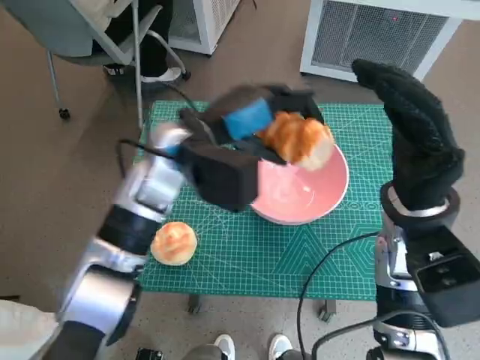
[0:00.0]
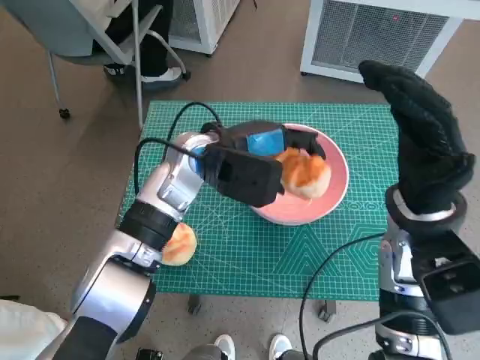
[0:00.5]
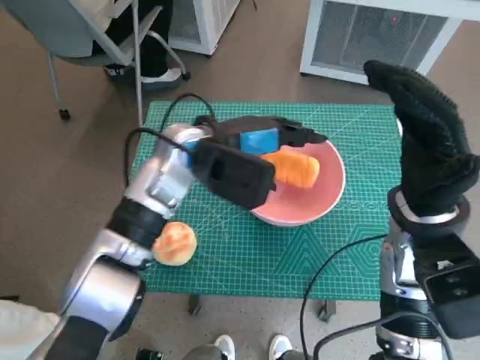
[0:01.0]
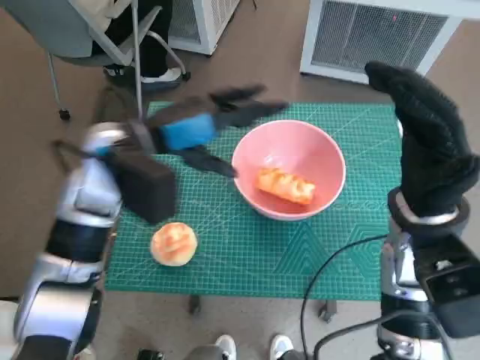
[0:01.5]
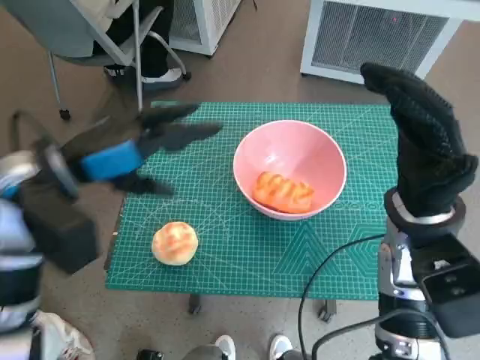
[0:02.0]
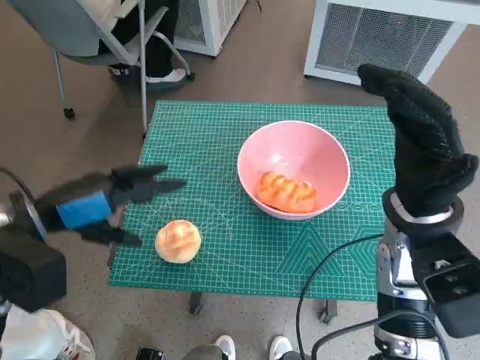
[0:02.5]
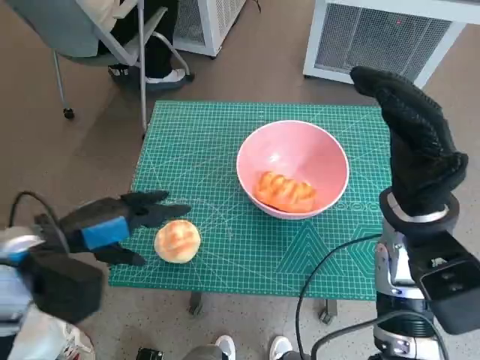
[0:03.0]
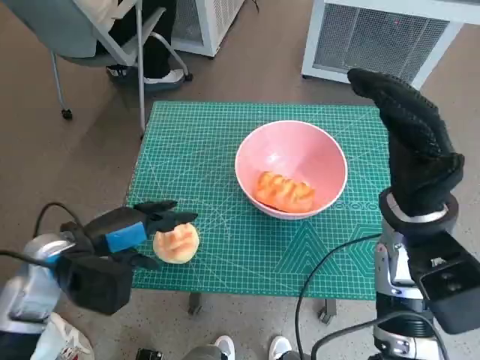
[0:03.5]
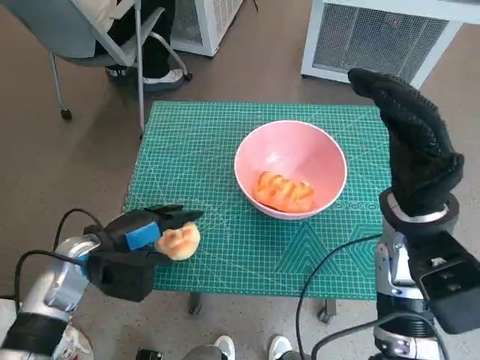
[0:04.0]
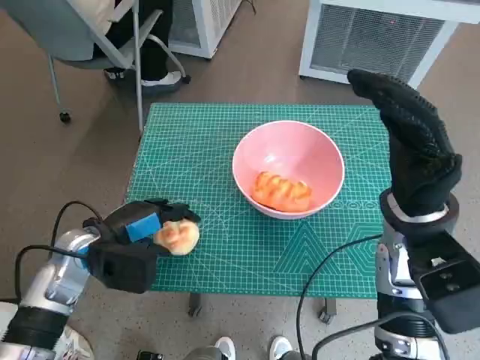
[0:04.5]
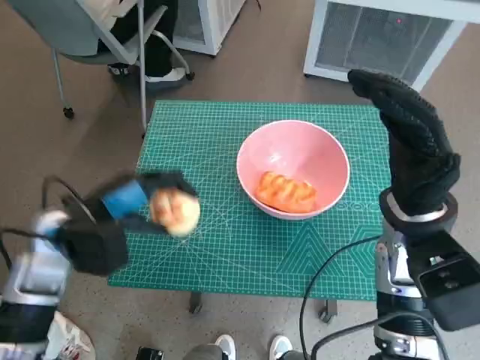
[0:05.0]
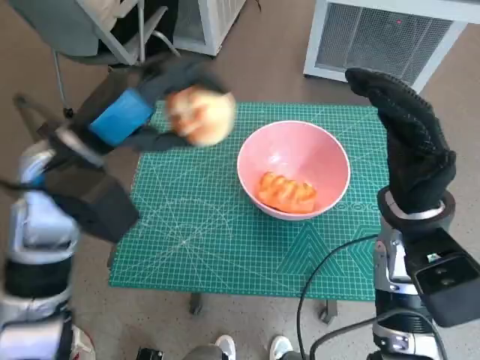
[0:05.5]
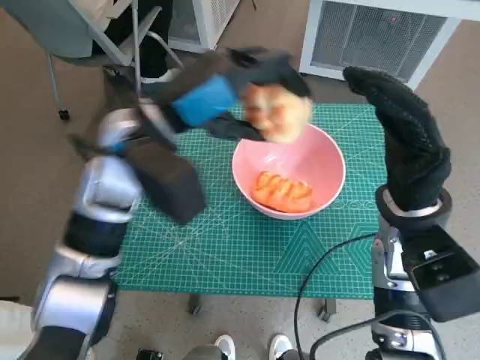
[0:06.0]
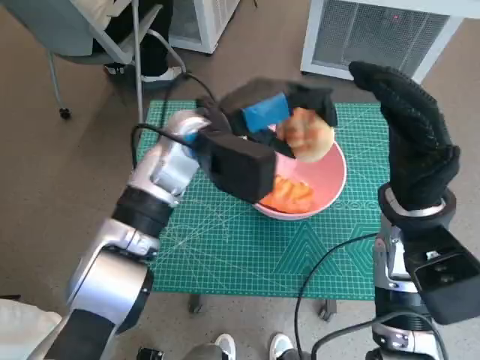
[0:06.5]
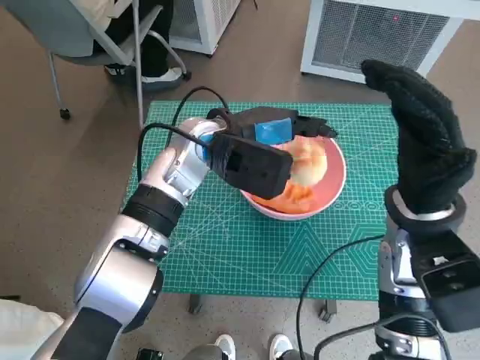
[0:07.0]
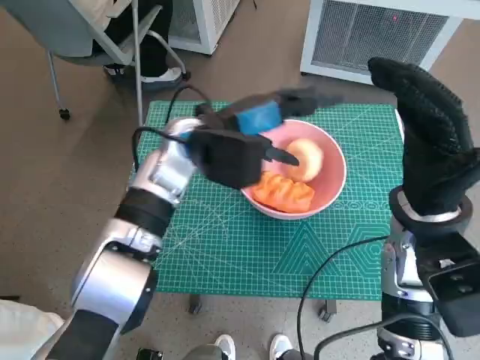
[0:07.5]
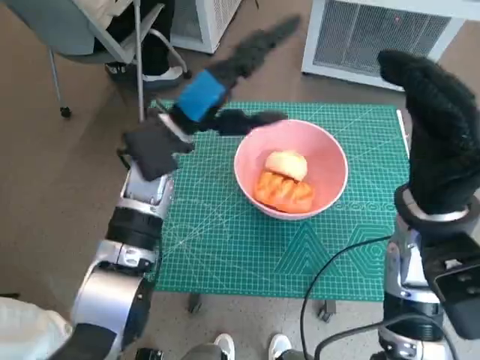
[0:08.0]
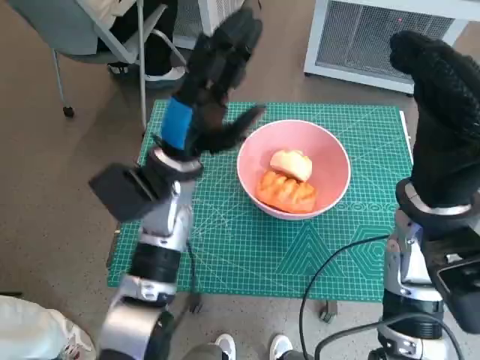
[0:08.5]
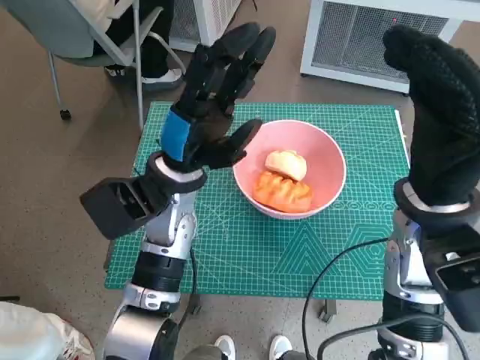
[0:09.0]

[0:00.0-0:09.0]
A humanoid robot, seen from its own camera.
Task of the whole recording: Push the bowl to the center of the table and put the bread into the bowl.
Step, 0:01.5 to 0:04.5: Grasp the round bread with left hand.
Step, 0:05.0 to 0:07.5: Place the round bread in pink bowl with left hand.
0:00.0 to 0:02.0: The left hand is displaced to the left and backward by some 15 cm.
0:02.0 to 0:04.5: The left hand heads downward, covering about 15 cm.
0:04.5 to 0:07.0: The left hand travels to the right, upward and forward by some 25 cm.
0:07.0 to 0:09.0: The left hand moves roughly 5 cm.

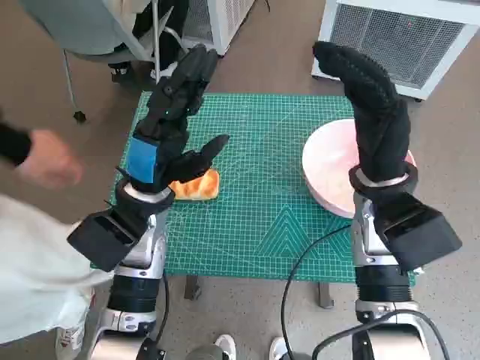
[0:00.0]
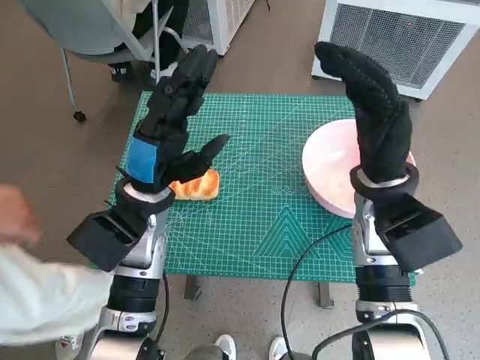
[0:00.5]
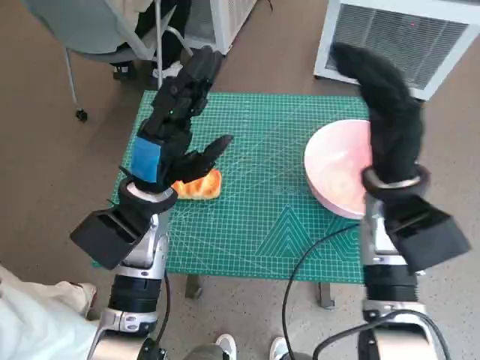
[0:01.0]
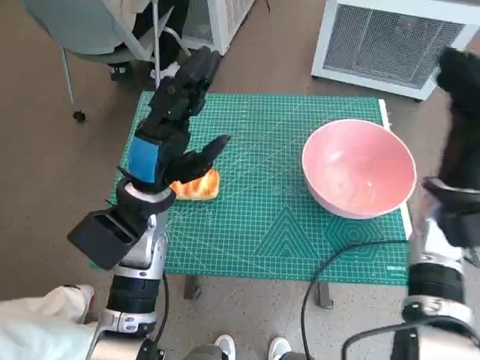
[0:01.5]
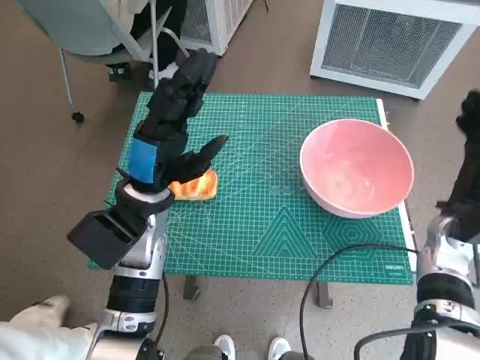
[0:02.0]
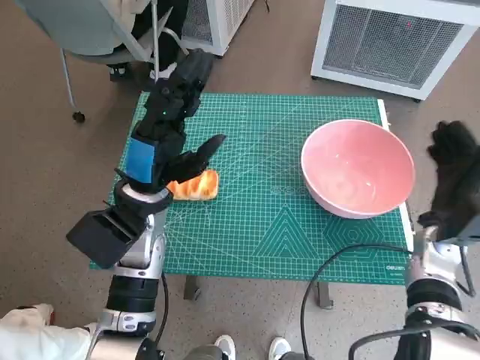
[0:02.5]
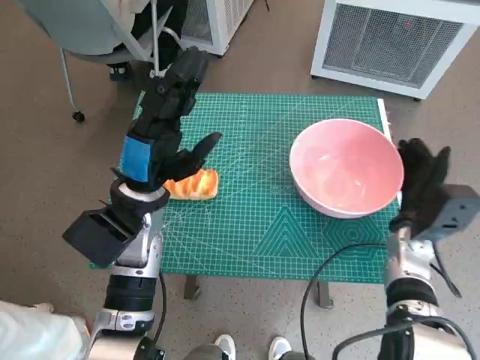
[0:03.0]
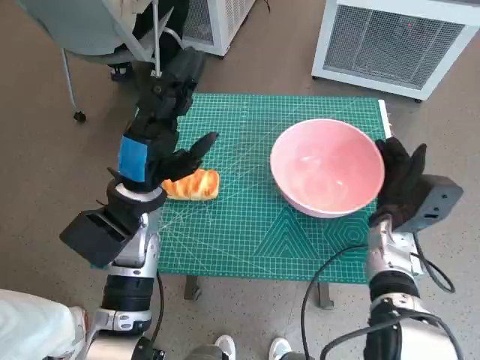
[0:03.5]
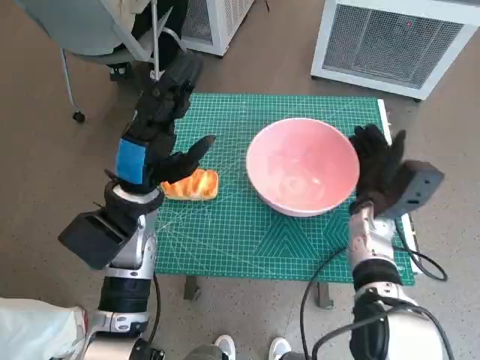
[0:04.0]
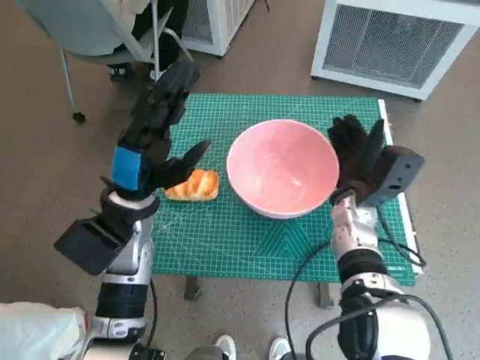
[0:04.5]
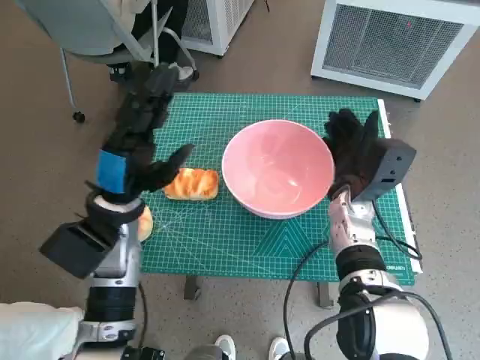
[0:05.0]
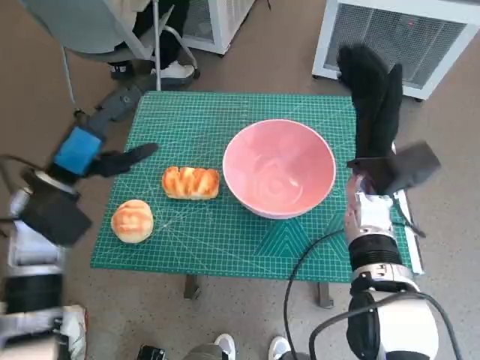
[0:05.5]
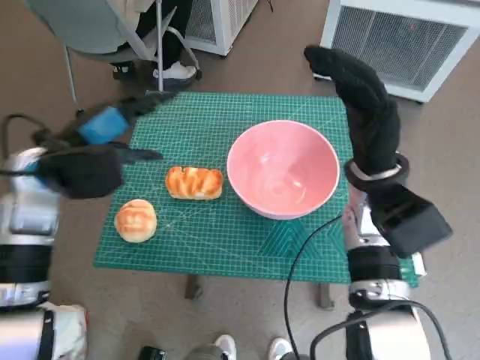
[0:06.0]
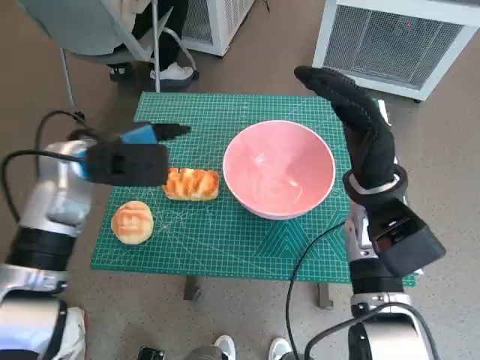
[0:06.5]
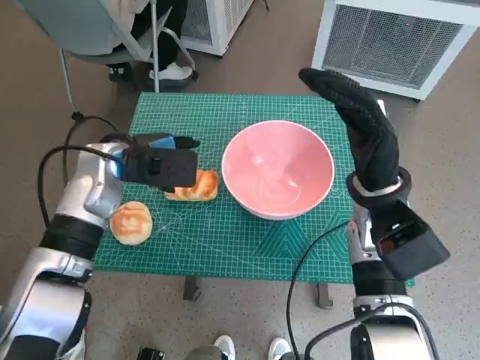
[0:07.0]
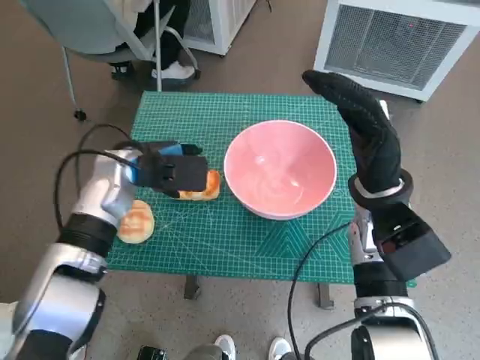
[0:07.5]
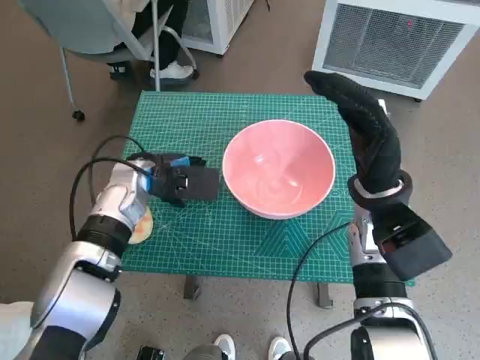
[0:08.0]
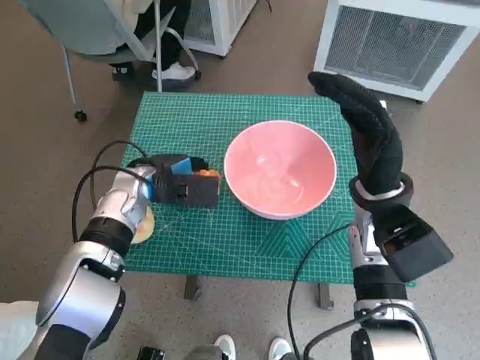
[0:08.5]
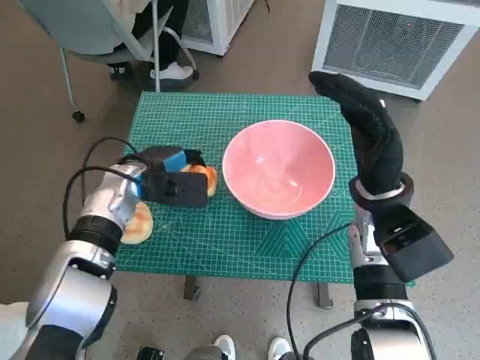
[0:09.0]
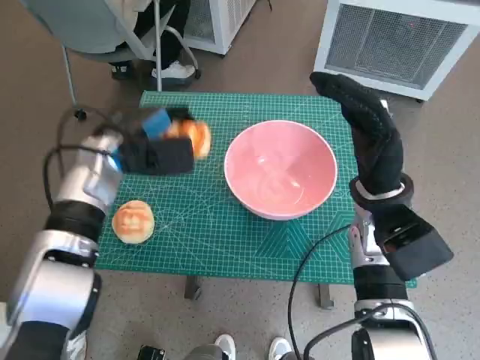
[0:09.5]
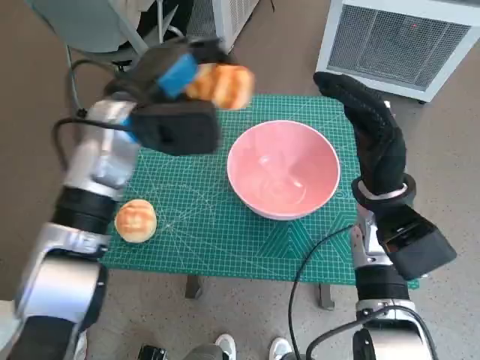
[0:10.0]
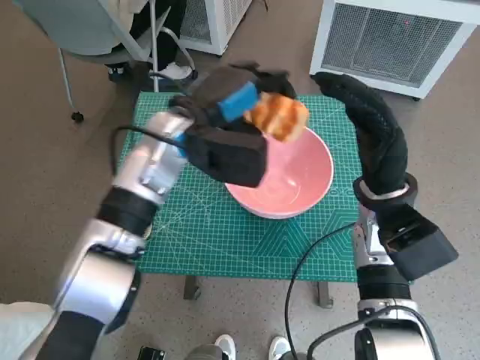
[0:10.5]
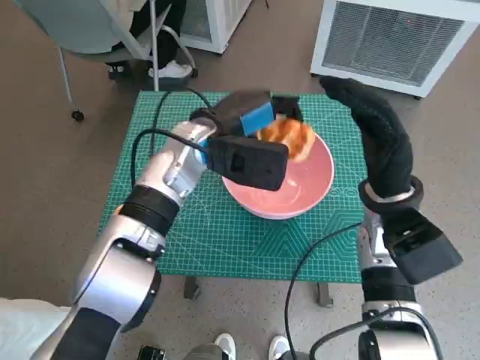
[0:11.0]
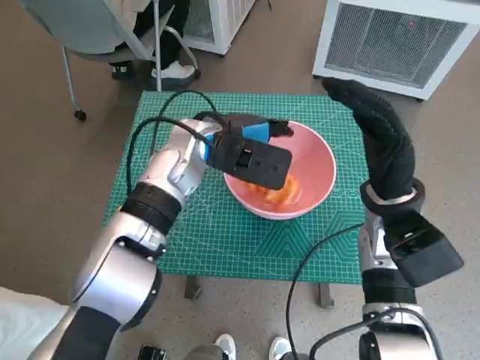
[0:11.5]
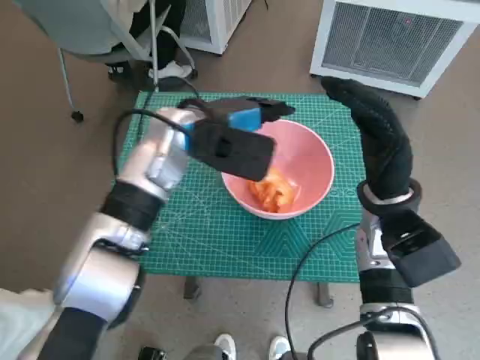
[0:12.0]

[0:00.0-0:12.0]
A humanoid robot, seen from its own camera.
Task of the whole recording: Push the bowl to the center of the table and put the bread into the bowl.
Step, 0:00.0 to 0:05.0: Move the pink bowl to the center of table with right hand.
Step, 0:05.5 to 0:08.5: Grasp the long bread with left hand.
Step, 0:09.0 to 0:11.5: Place the long bread in pink bowl with left hand.
0:02.0 to 0:04.0: The right hand moves to the left, approximately 10 cm.
0:04.0 to 0:06.0: The right hand is displaced upward by some 10 cm. Meanwhile the left hand moves to the left and upward, some 10 cm.
0:06.0 to 0:08.0: The left hand heads downward, to the right and forward, covering roughly 10 cm.
0:08.0 to 0:10.0: The left hand goes roughly 10 cm upward.
0:10.0 to 0:12.0: The left hand travels to the right by approximately 5 cm.

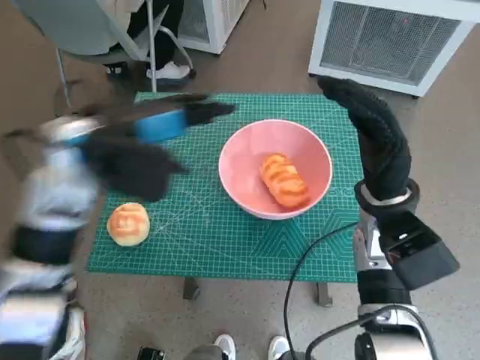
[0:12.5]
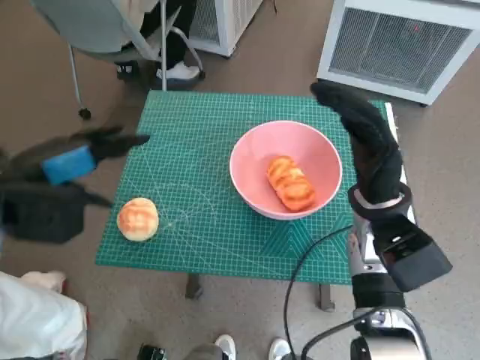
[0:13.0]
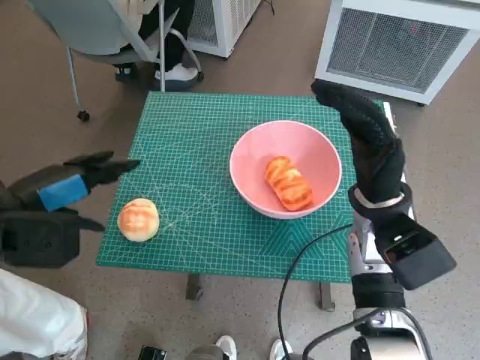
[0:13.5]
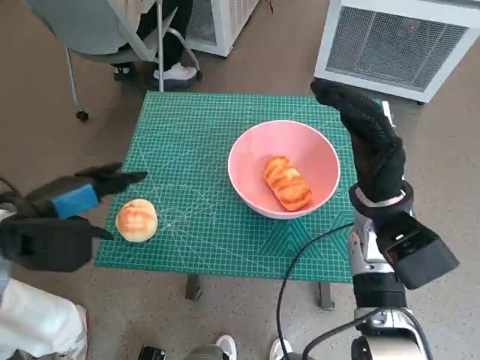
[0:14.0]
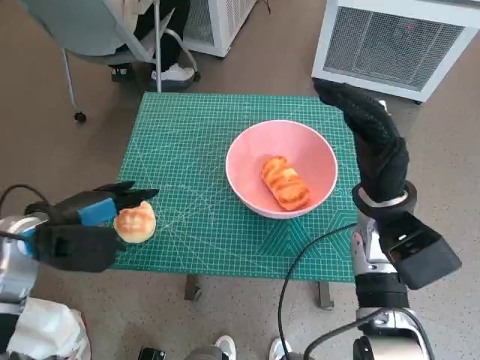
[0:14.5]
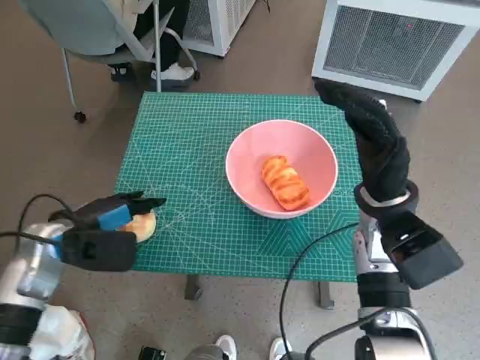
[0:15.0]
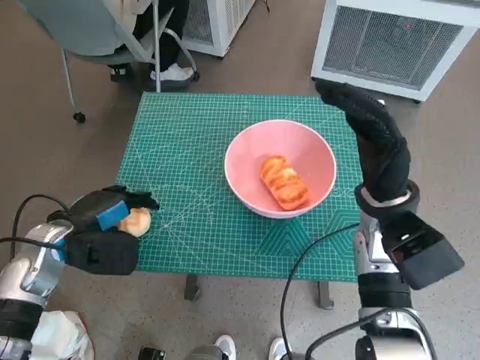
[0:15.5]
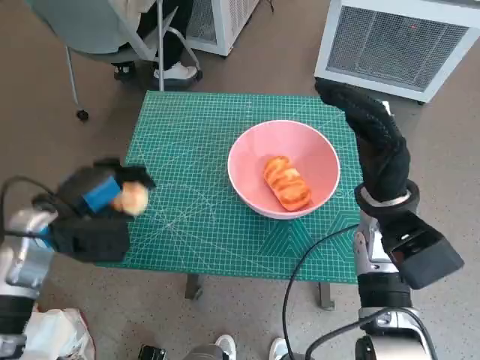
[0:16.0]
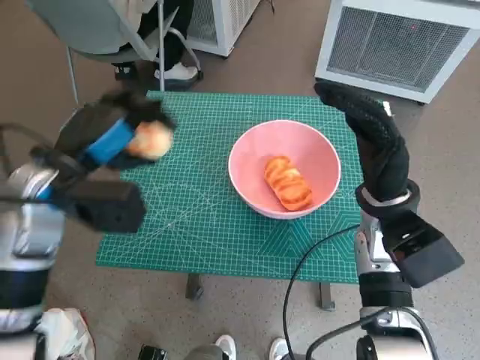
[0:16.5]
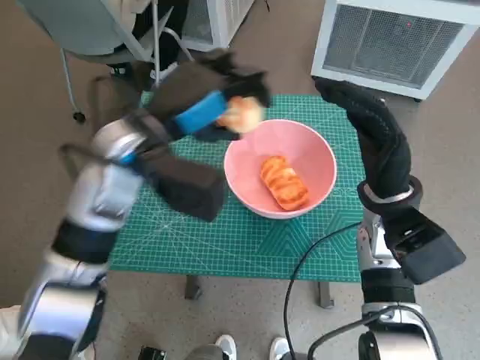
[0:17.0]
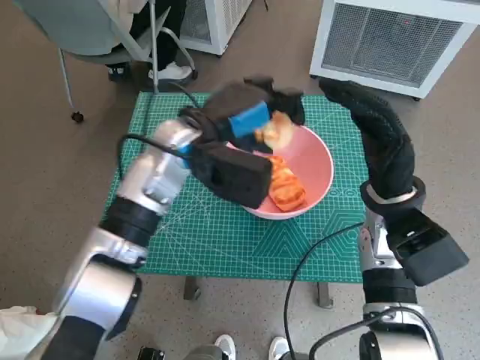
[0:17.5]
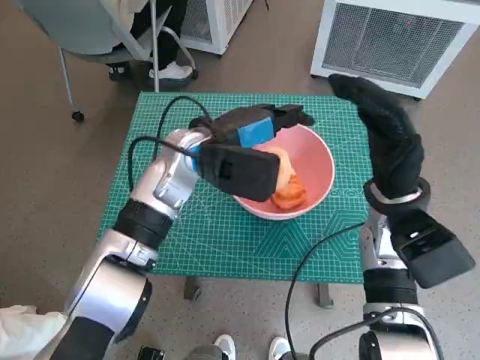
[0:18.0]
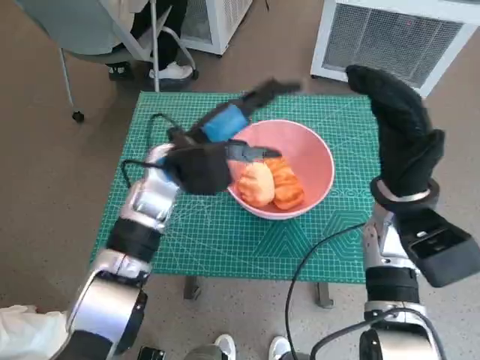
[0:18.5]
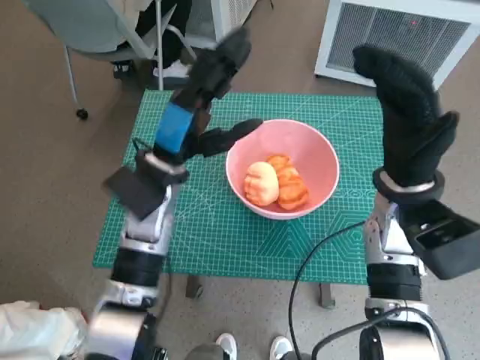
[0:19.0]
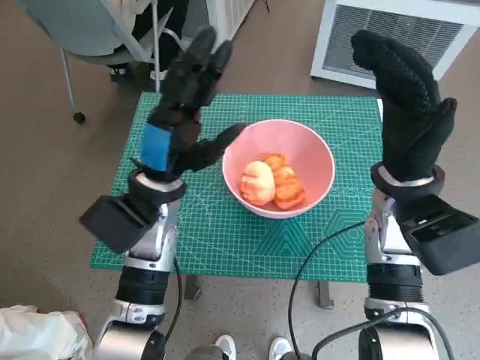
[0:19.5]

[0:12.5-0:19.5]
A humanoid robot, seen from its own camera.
Task of the whole recording: Push the bowl to the center of the table and put the bread into the bowl.
Step, 0:12.5 to 0:15.0: Grasp the round bread with left hand.
Step, 0:15.5 to 0:18.0: Place the round bread in pink bowl with left hand.
0:12.5 to 0:14.5: The left hand shifts some 15 cm downward, to the left and backward.
0:16.0 to 0:17.5: The left hand shifts about 20 cm to the right and forward.
0:17.5 to 0:19.5: The left hand is displaced backward by some 5 cm.
